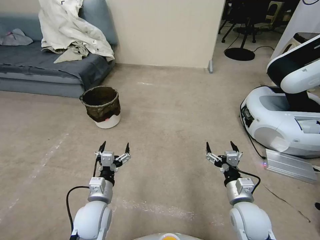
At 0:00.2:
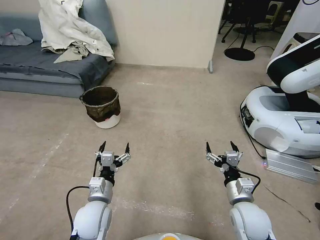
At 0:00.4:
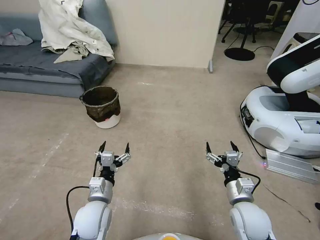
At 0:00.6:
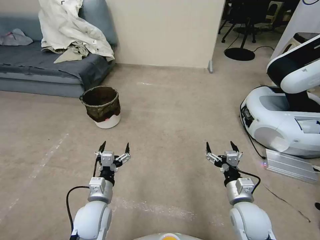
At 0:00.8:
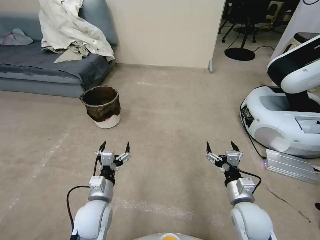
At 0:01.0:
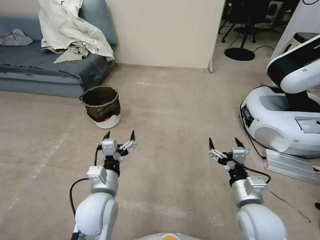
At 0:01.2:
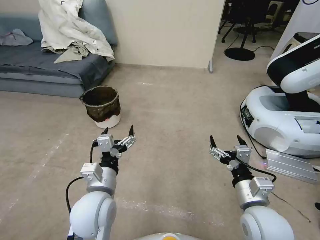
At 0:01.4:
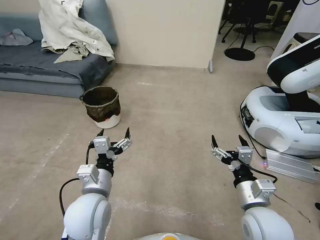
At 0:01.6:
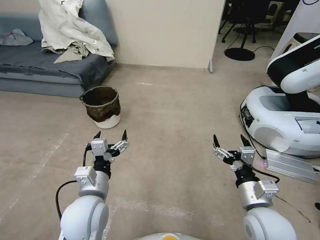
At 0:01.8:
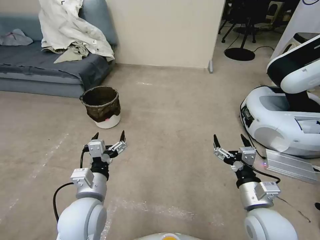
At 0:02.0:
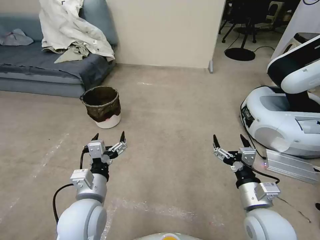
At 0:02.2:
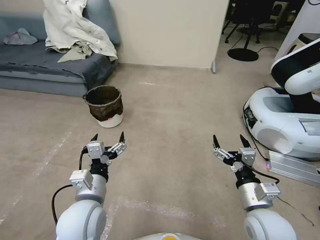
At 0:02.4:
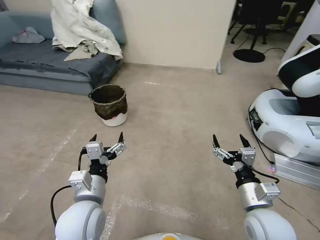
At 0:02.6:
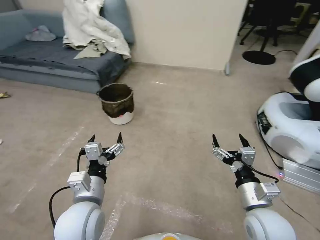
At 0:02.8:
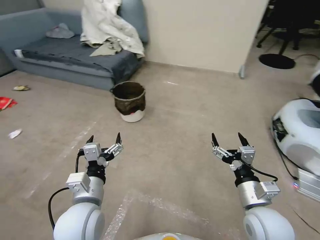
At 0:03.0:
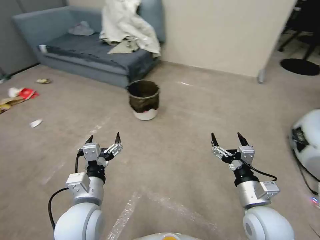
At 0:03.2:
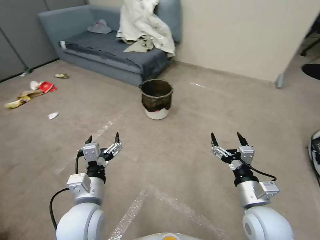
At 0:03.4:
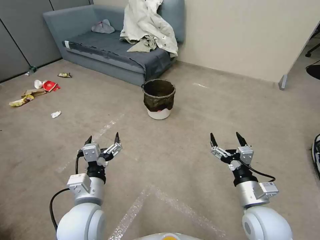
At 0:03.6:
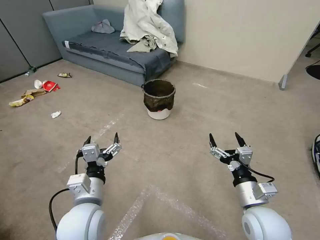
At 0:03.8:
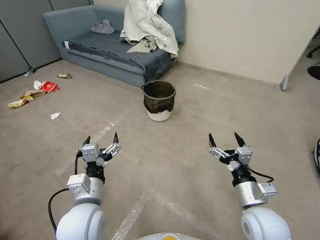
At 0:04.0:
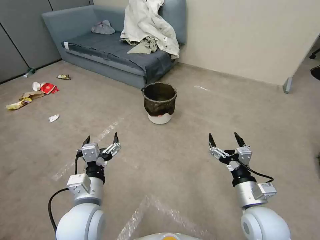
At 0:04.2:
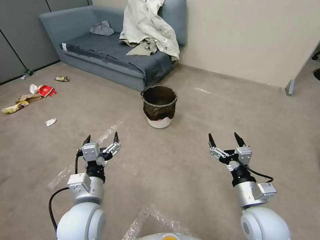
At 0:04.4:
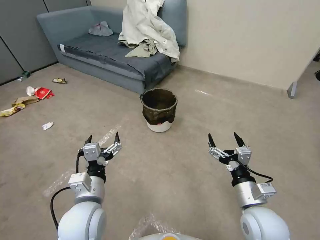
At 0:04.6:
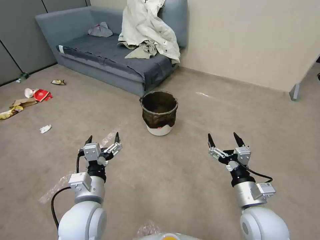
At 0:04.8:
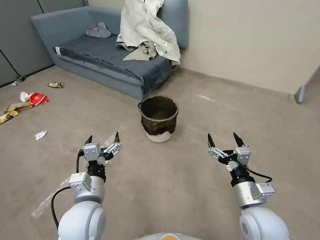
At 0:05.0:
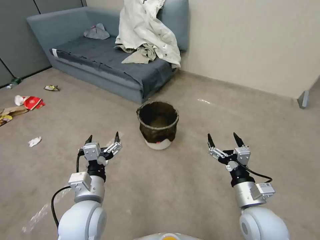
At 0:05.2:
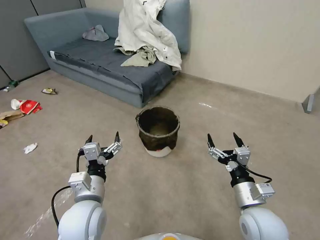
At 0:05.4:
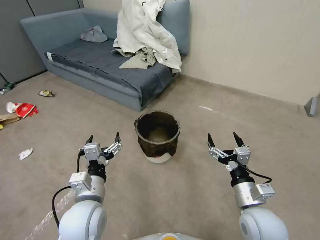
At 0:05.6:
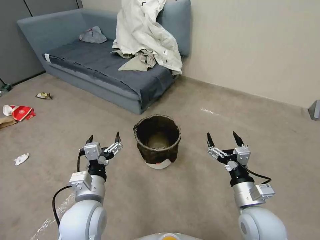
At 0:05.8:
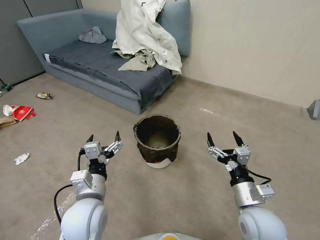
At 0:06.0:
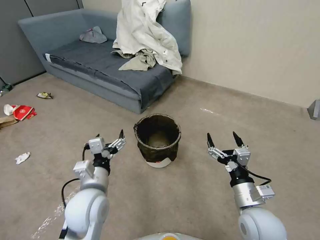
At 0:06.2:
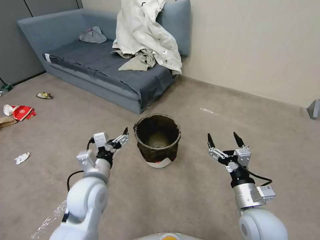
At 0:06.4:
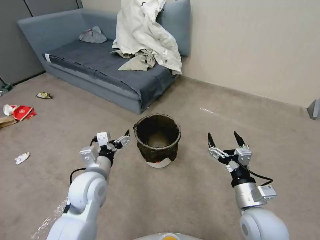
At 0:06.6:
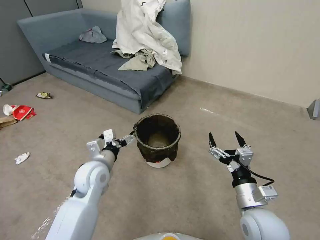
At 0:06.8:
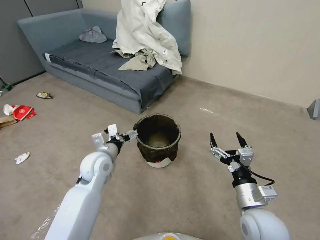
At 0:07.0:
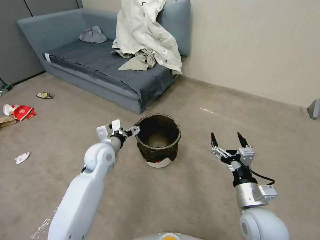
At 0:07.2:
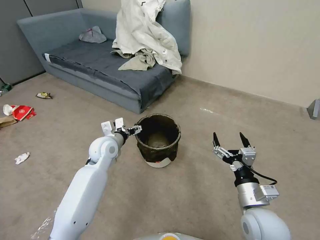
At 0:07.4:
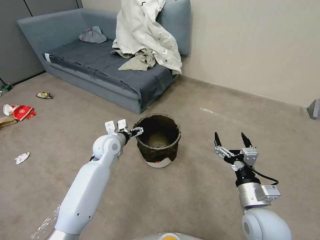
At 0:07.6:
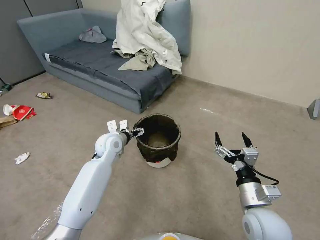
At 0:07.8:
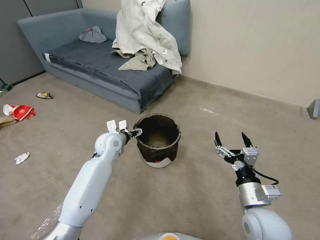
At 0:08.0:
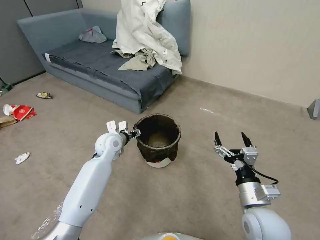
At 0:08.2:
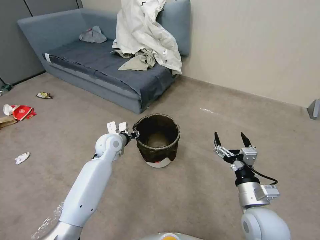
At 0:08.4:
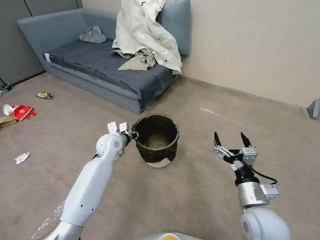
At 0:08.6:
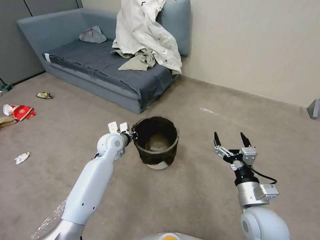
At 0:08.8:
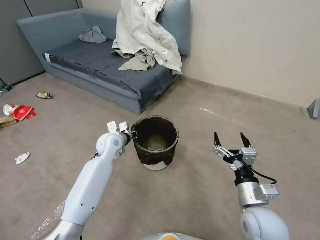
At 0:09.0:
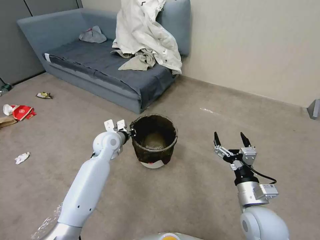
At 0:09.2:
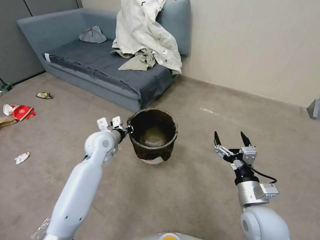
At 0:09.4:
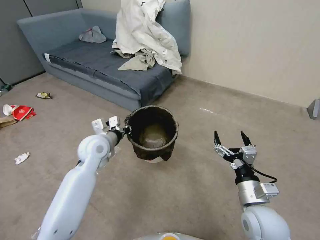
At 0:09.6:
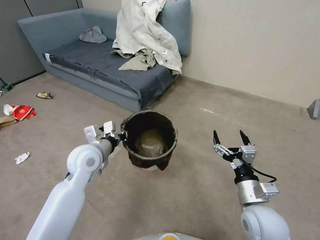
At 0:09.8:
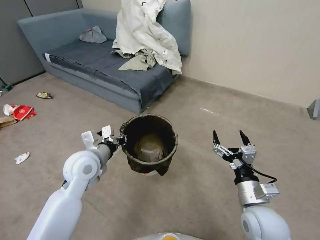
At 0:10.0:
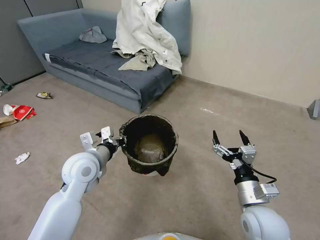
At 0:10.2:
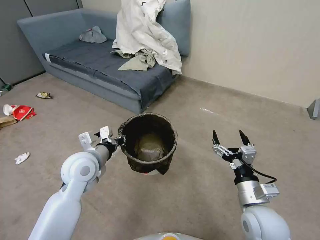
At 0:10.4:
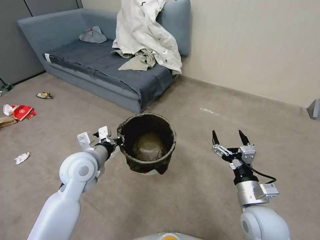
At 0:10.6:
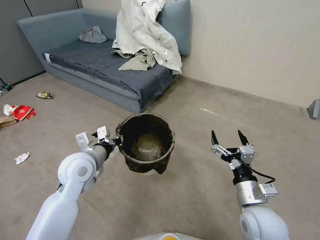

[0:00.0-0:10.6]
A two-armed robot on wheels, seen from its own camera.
Task of the whole recording: Pick up the trash can from the floor.
0:06.0 to 0:07.6: The left gripper shifts some 20 cm forward.
0:07.6 to 0:09.0: The left gripper closes.
0:09.0 to 0:10.6: The left gripper moves backward and upward, roughly 15 cm.

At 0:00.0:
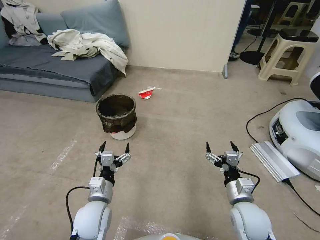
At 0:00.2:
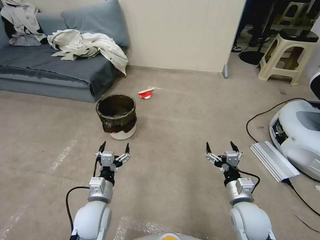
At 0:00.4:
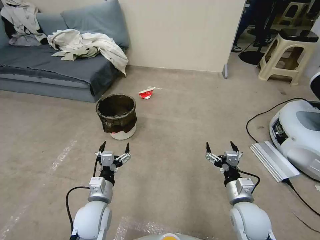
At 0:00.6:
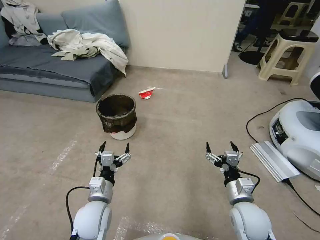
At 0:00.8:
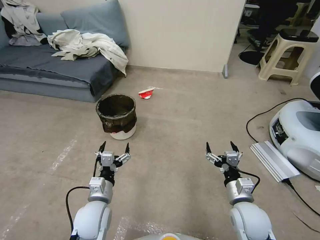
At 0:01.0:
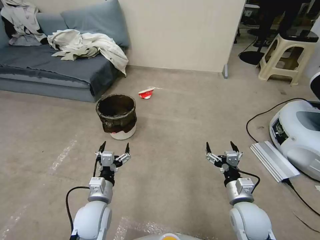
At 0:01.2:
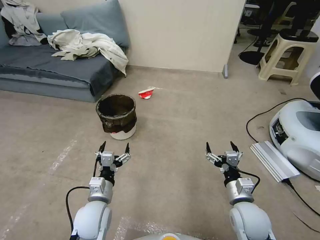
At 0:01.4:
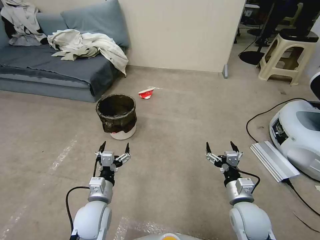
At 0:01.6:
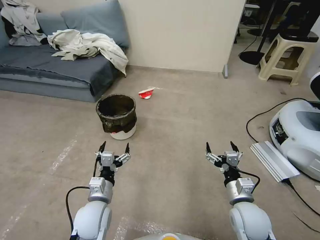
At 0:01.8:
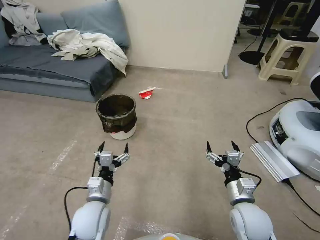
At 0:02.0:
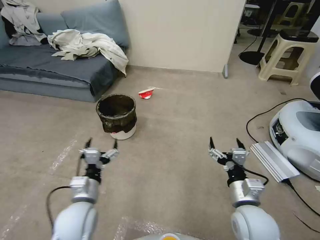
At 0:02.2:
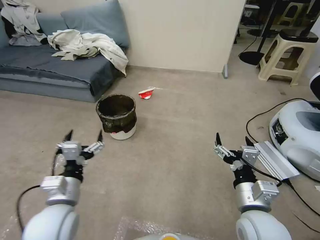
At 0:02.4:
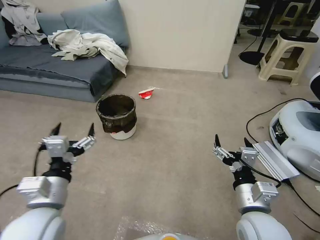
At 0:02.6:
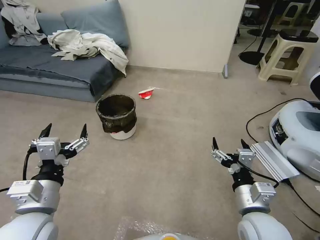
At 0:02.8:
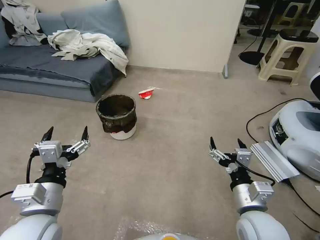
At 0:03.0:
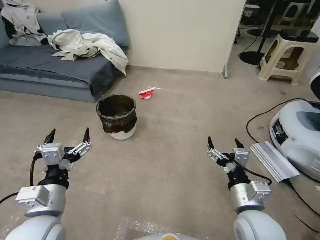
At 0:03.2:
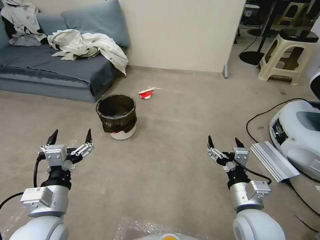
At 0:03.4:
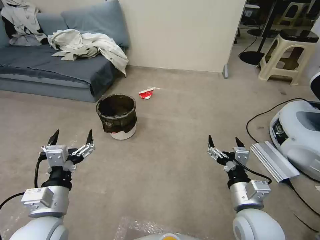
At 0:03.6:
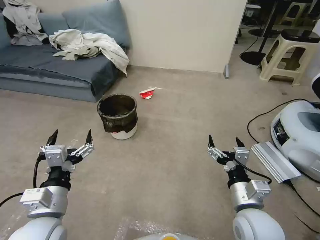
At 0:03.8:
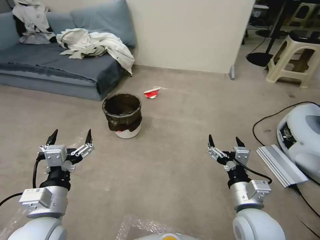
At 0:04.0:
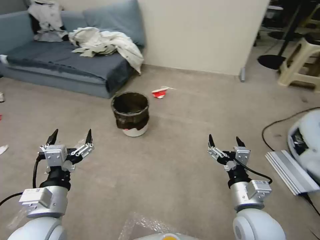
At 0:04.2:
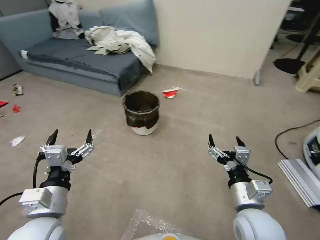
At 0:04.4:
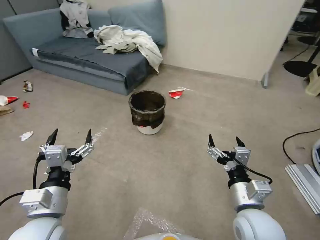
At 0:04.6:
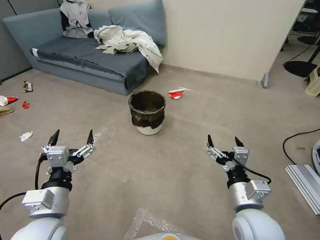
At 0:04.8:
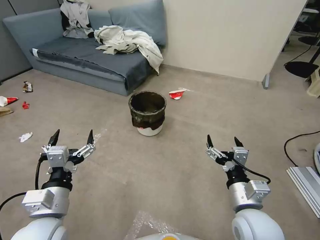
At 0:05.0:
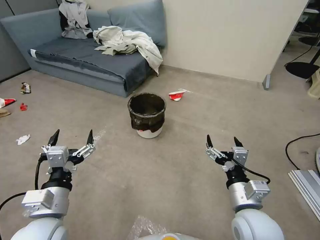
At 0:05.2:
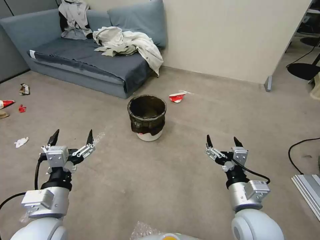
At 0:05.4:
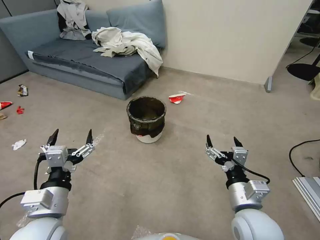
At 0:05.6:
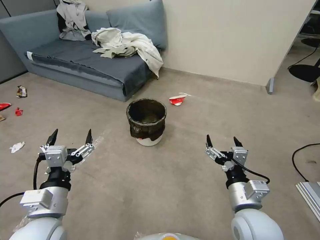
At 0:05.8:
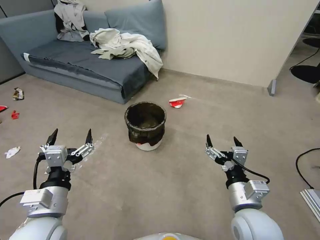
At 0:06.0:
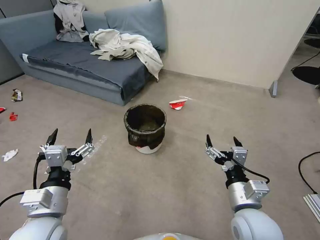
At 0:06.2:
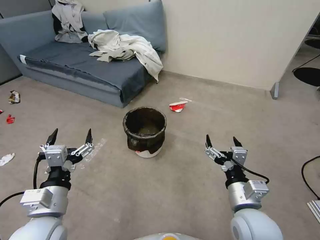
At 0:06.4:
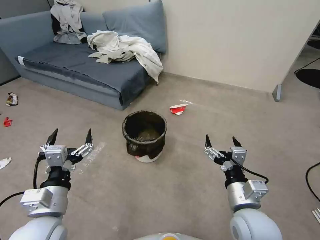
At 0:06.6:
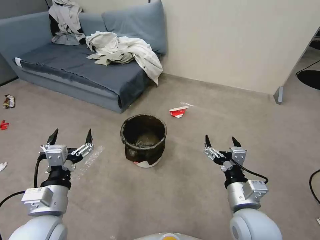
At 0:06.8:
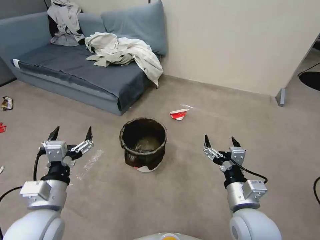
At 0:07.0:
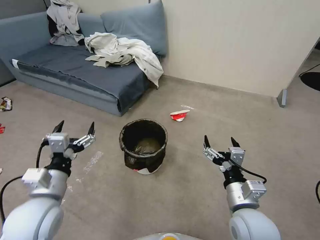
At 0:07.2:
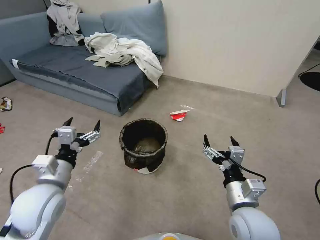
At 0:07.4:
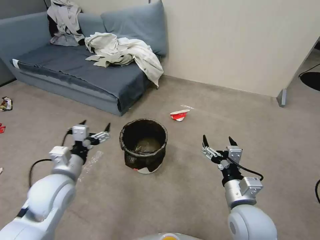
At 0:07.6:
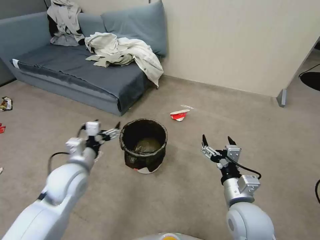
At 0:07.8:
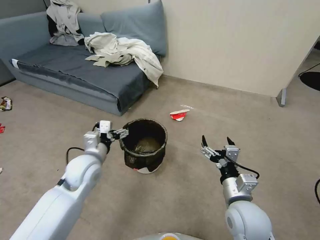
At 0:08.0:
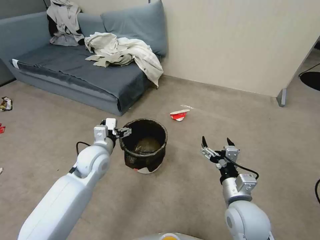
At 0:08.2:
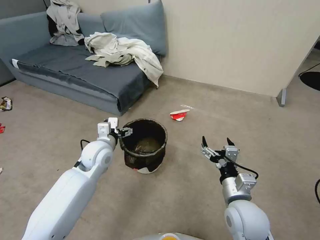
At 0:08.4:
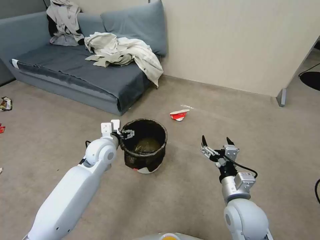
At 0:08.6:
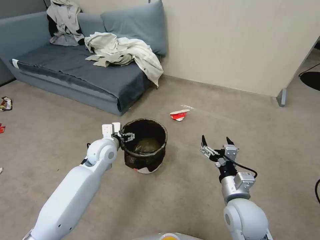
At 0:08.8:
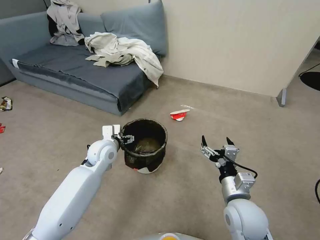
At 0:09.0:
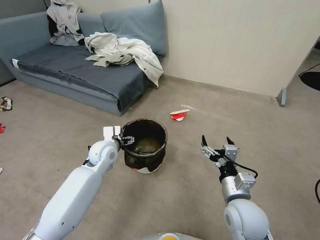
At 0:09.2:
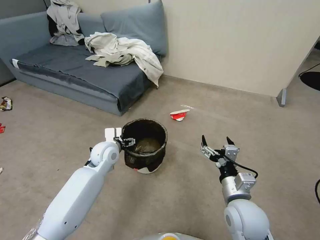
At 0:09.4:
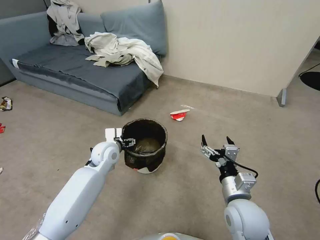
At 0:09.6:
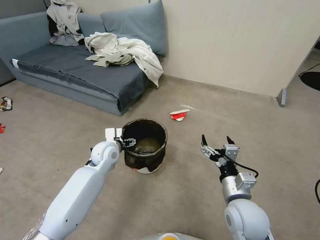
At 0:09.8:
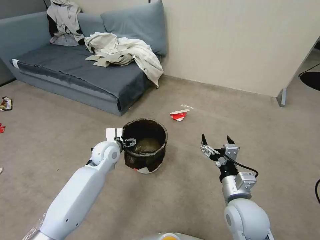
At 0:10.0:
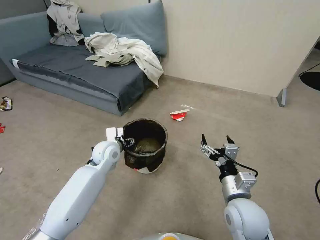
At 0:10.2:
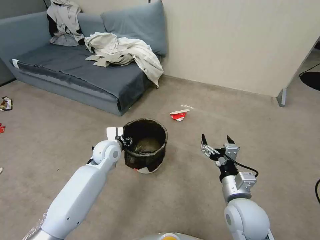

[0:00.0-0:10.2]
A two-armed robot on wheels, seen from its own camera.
Task of the whole recording: Pick up the trash can from the floor.
0:01.4 to 0:03.0: The left gripper is displaced upward, backward and to the left by roughly 15 cm, while the right gripper heads upward, covering about 10 cm.
0:04.4 to 0:05.8: Both grippers stay about where they are.
0:05.8 to 0:07.2: The left gripper heads forward, covering approximately 5 cm.
0:07.2 to 0:08.8: The left gripper travels forward and to the right by roughly 20 cm.
0:08.8 to 0:10.2: The left gripper closes its fingers.

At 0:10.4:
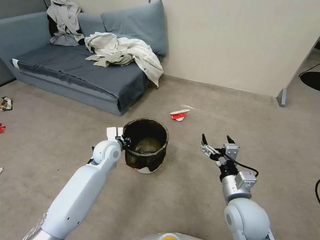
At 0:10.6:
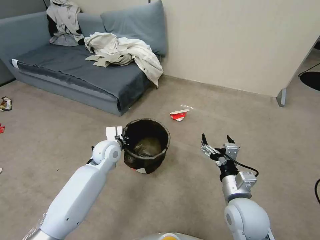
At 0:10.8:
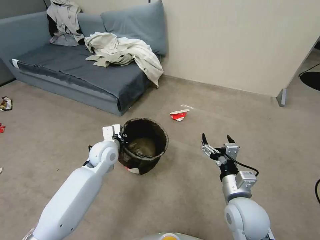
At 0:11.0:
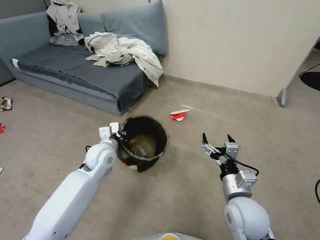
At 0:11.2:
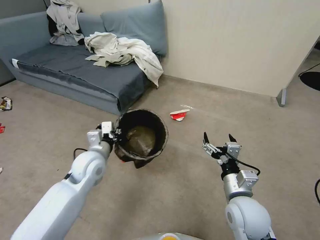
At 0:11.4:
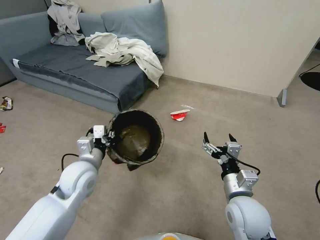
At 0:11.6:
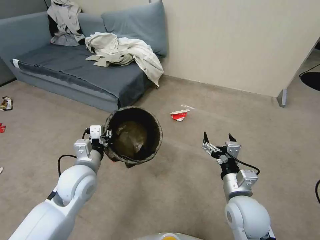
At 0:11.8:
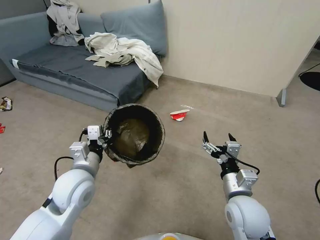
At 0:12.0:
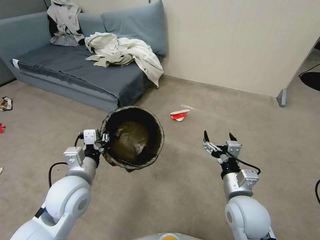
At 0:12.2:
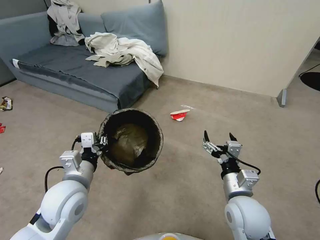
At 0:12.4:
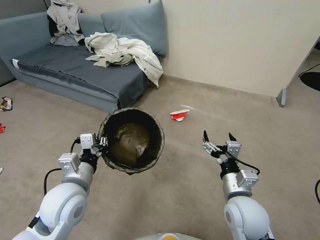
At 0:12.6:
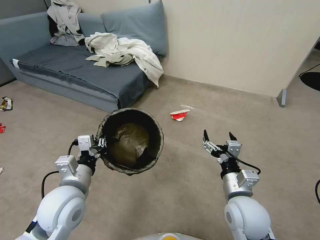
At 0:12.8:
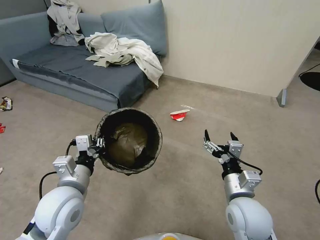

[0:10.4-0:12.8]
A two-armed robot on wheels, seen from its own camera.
Task of the whole recording: Pick up the trash can from the floor.
0:10.4 to 0:11.6: The left gripper is displaced backward and upward by approximately 15 cm.
0:11.6 to 0:12.8: The left gripper travels backward by roughly 5 cm.
